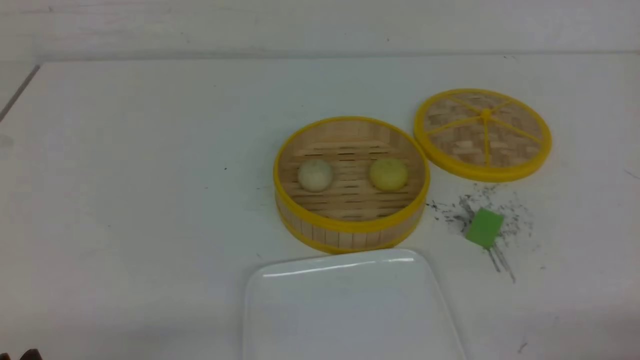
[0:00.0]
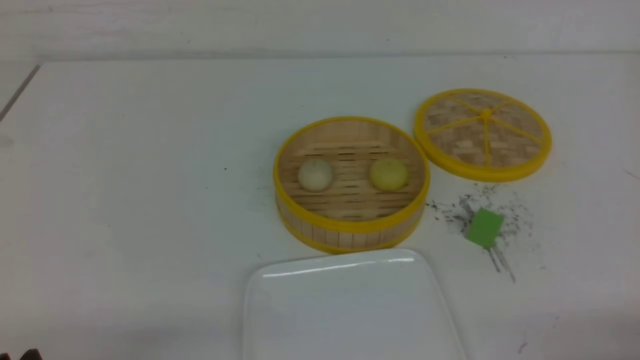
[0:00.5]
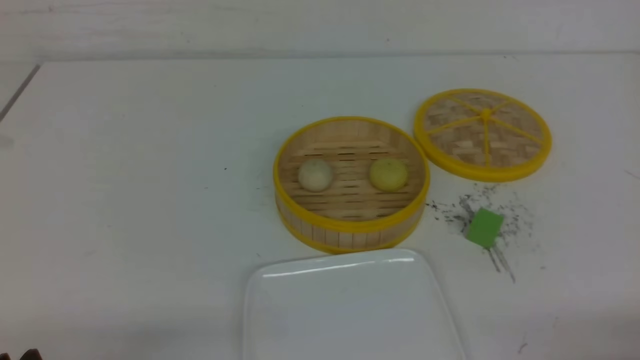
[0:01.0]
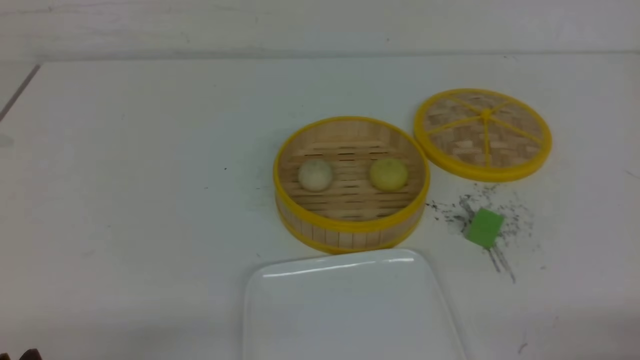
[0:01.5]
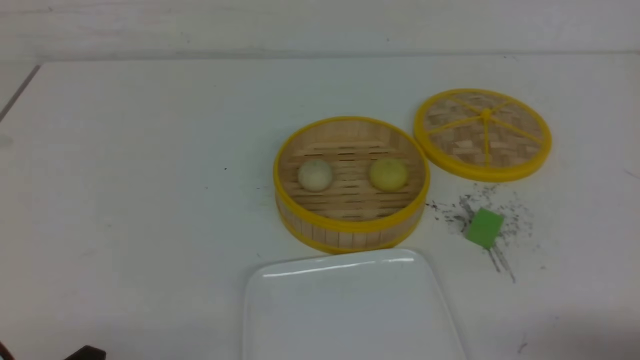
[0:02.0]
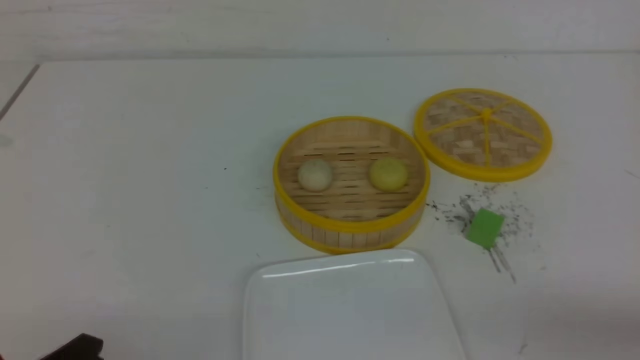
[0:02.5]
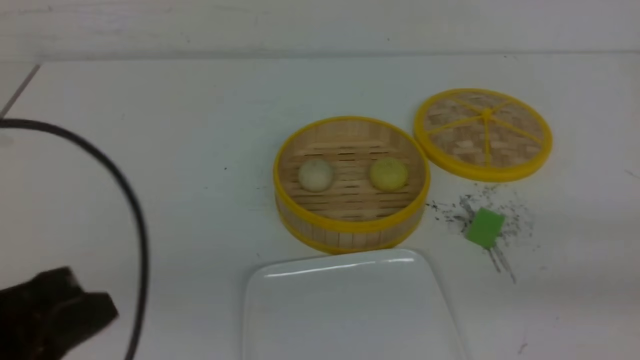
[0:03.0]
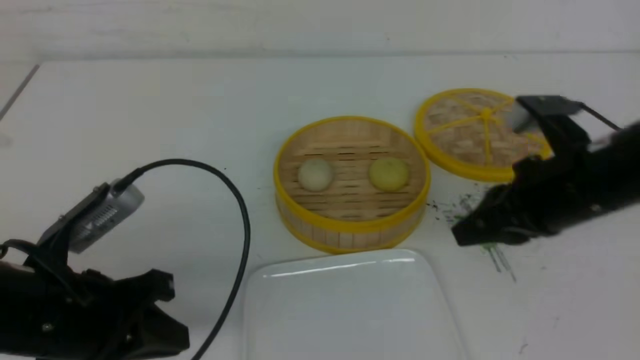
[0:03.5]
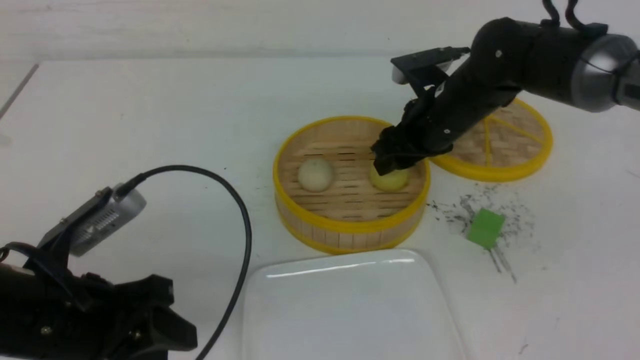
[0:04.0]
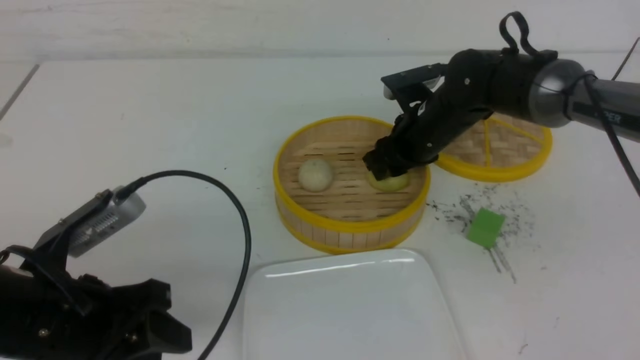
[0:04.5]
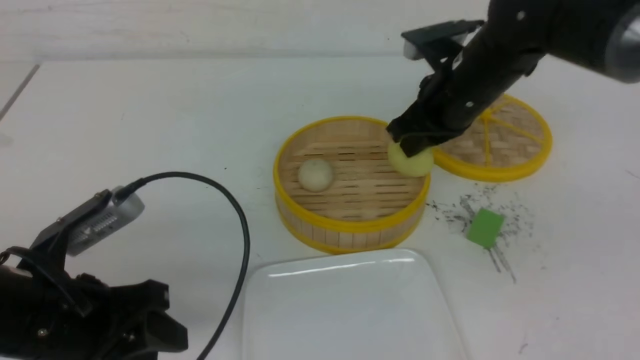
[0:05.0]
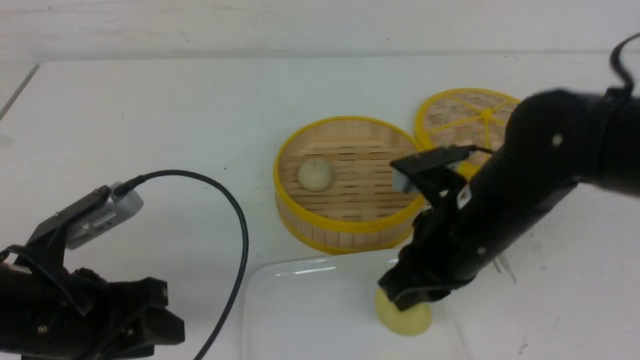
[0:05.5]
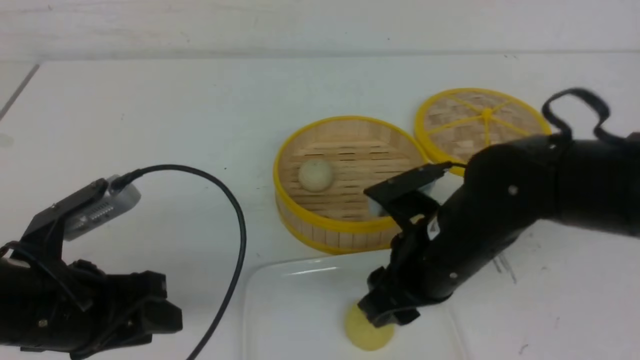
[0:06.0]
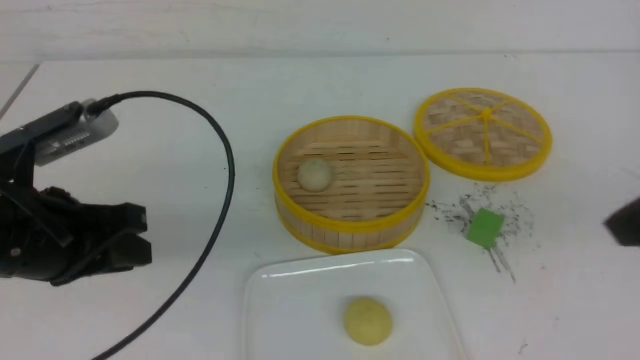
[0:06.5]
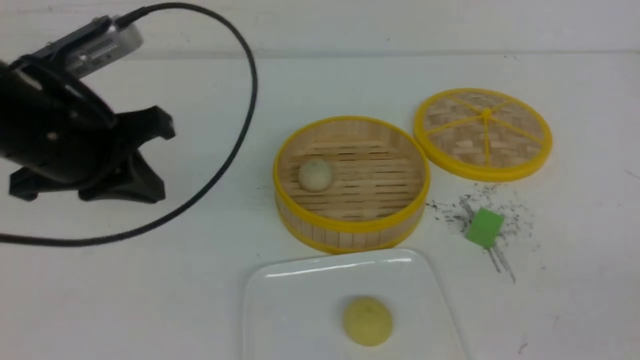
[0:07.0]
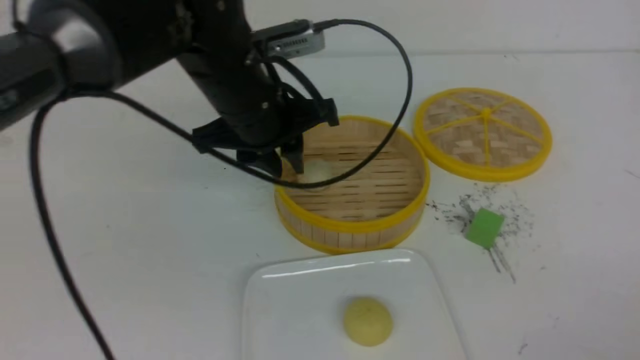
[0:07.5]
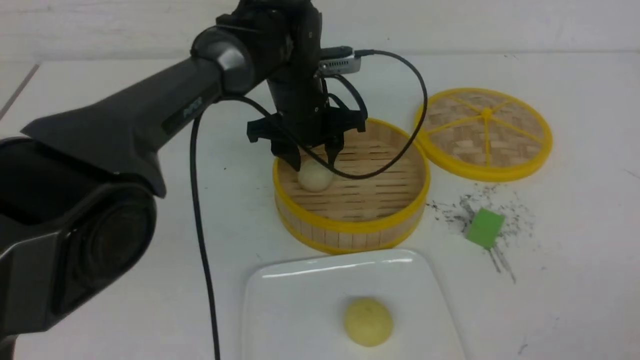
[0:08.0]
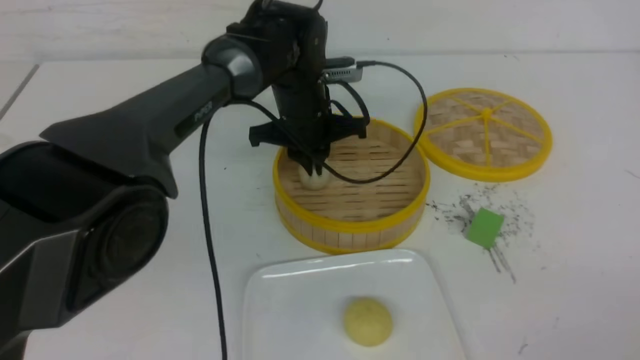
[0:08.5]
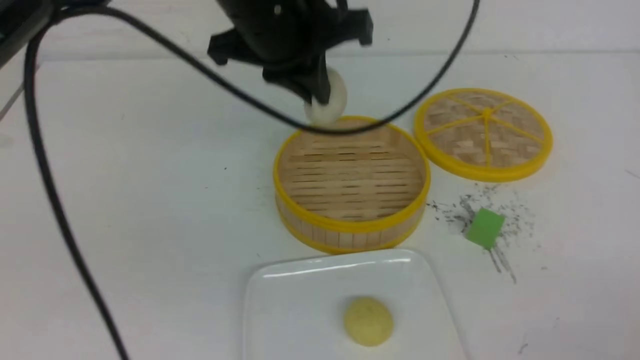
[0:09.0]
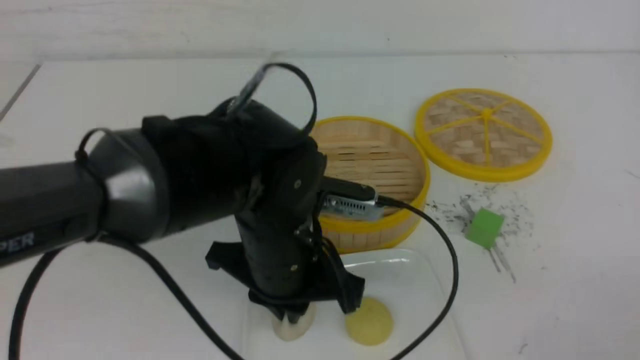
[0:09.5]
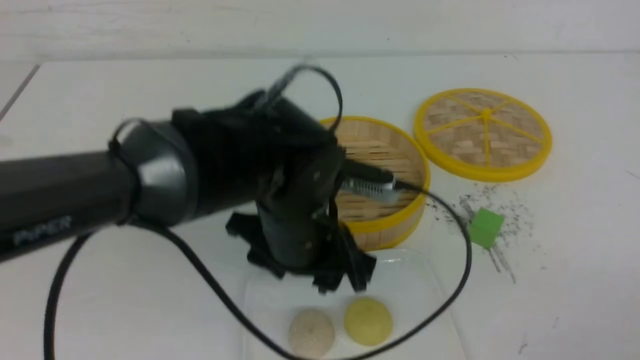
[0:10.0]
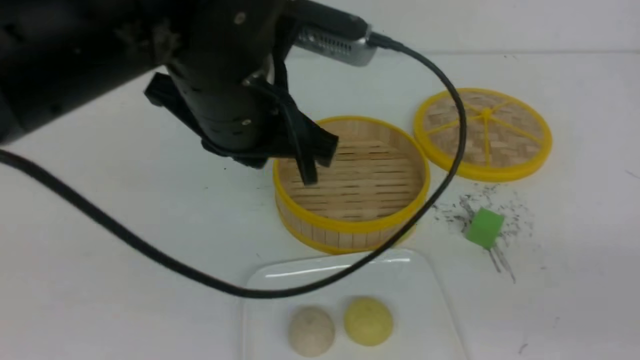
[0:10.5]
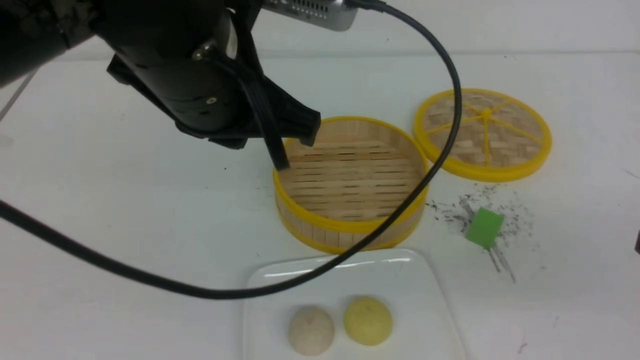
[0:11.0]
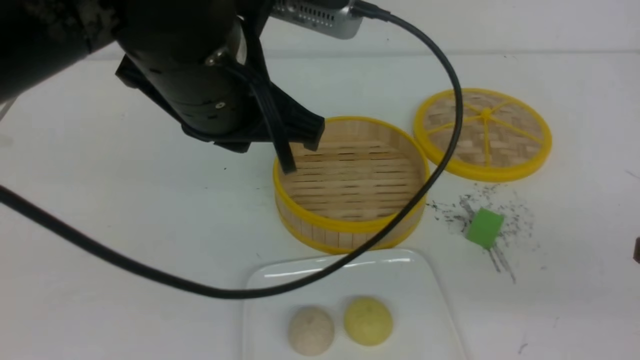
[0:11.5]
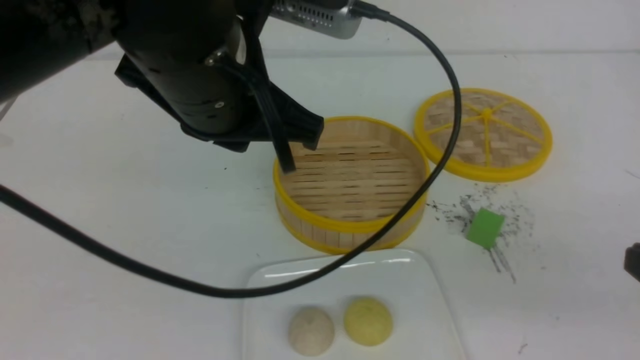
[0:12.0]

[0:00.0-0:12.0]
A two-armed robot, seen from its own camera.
Step, 0:00.0 to 0:04.5: use the right arm to grab the steamed stuffed bun that is closest to it.
Step, 0:05.0 to 0:06.0: use the right arm to put the steamed stuffed bun into the plate.
Step, 0:06.5 to 0:08.0: use the left arm to grab the steamed stuffed bun that is closest to it.
Step, 0:08.5 to 0:09.5: use the left arm to put the steamed stuffed bun into the plate.
0:02.0 to 0:04.0: The left gripper is displaced forward and upward by approximately 15 cm, and closes and opens again; the right gripper shifts roughly 40 cm forward and to the left, and closes, then opens again.
0:04.0 to 0:06.0: The right gripper heads backward, covering approximately 15 cm, and closes, then reopens.
0:06.0 to 0:08.0: The right gripper moves backward and to the right, some 30 cm, and closes. The left gripper travels forward and to the right by some 30 cm, and closes, then opens again.
0:08.0 to 0:10.0: The left gripper travels backward by roughly 20 cm, and closes, then opens again.
0:10.0 to 0:12.0: The right gripper heads forward, covering about 5 cm. Meanwhile the left gripper travels upward by roughly 15 cm, and closes up.

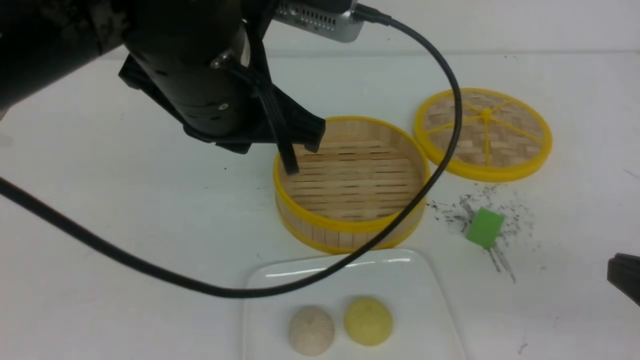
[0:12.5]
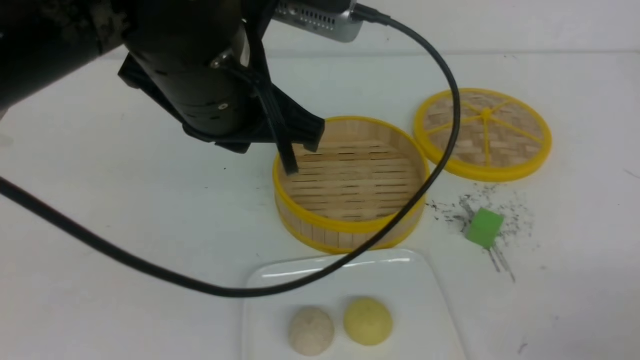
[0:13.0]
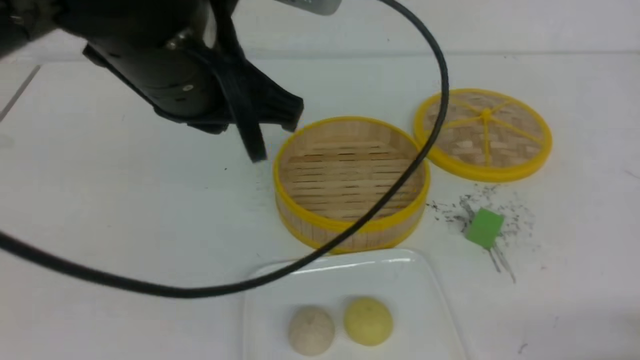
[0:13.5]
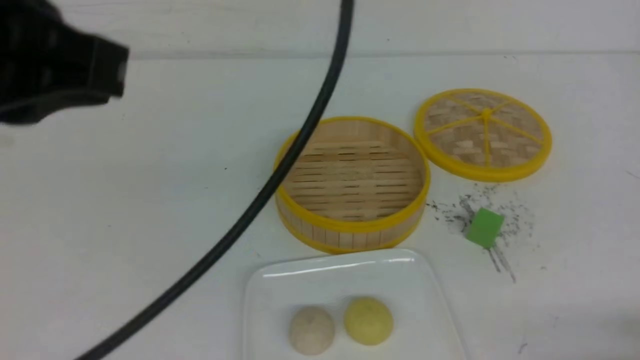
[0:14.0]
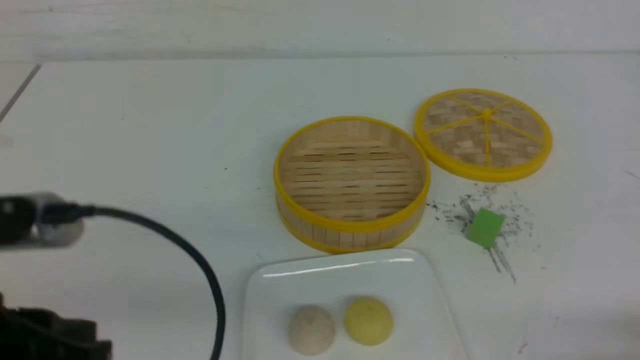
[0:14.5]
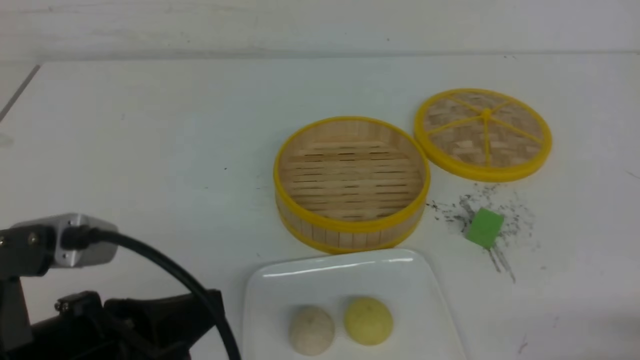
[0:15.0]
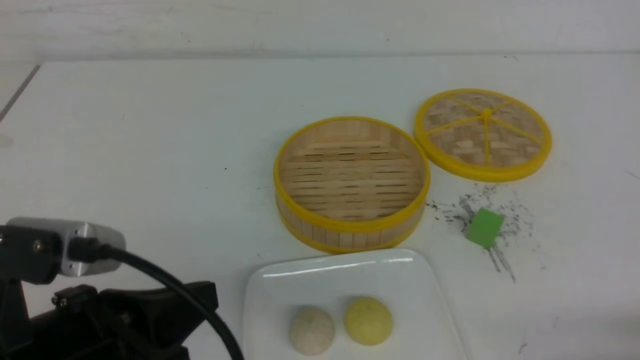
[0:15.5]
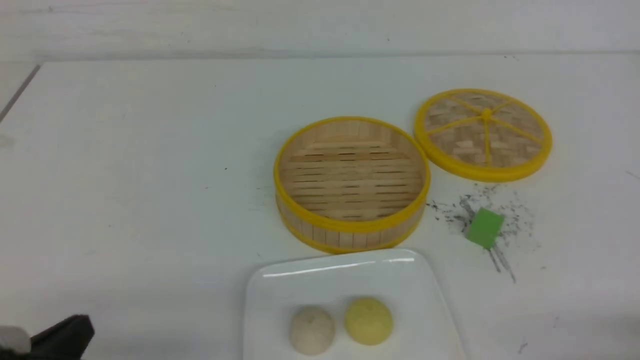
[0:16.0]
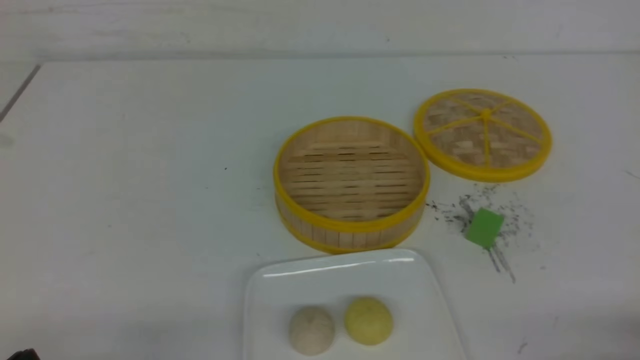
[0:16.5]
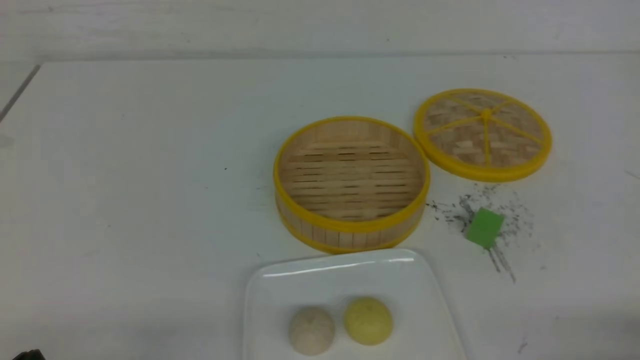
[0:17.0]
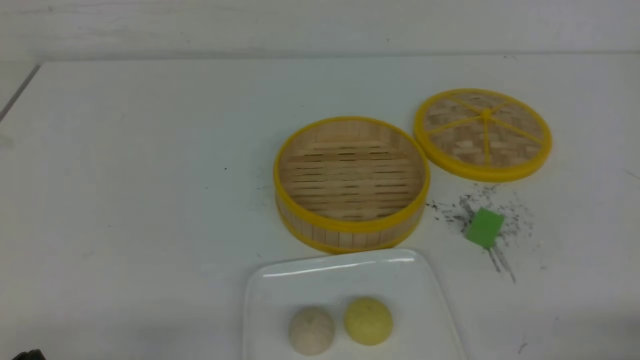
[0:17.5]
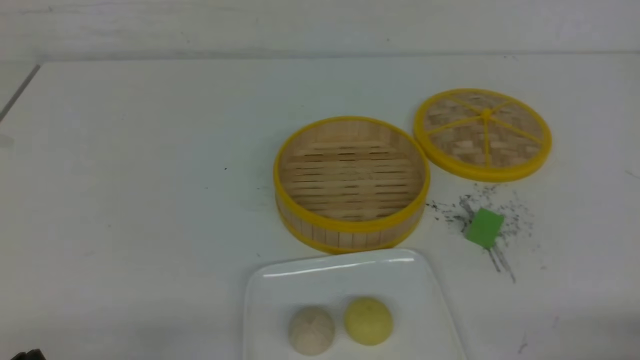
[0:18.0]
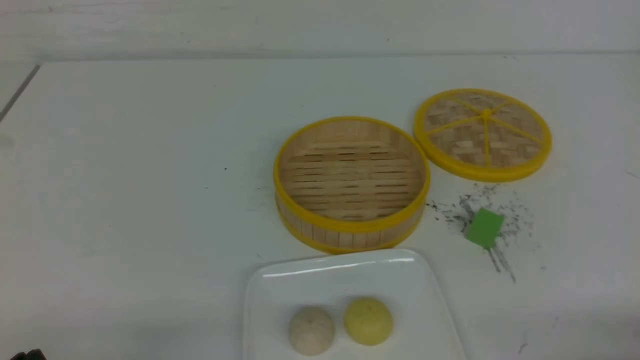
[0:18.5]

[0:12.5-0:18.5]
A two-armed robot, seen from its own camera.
0:12.5 to 0:14.5: The right gripper heads downward, covering some 10 cm, while the left gripper heads backward, to the left and downward, covering some 20 cm.
0:14.5 to 0:16.5: The left gripper travels downward and to the left by approximately 15 cm.
0:16.5 to 0:18.5: Both grippers stay about where they are.
